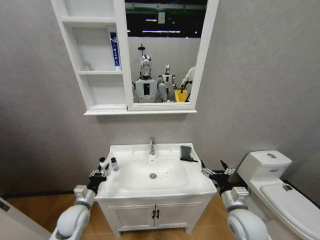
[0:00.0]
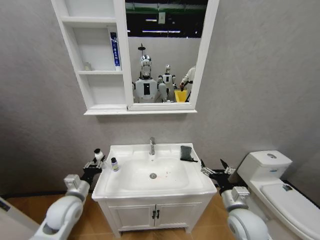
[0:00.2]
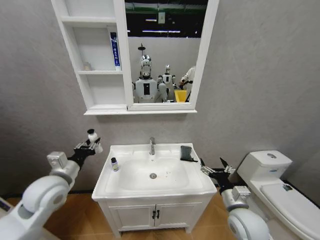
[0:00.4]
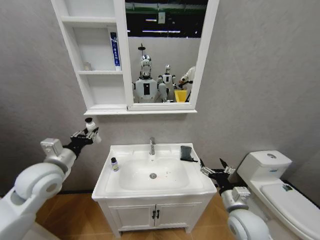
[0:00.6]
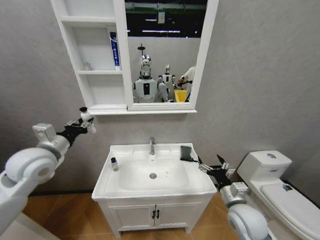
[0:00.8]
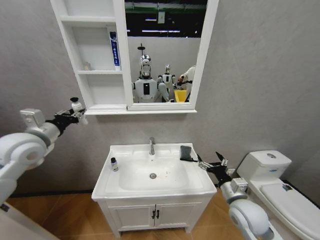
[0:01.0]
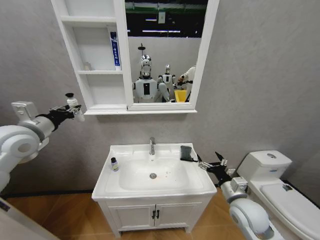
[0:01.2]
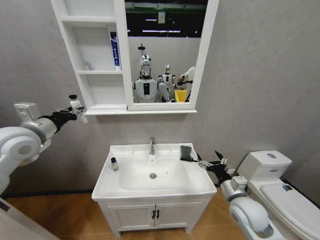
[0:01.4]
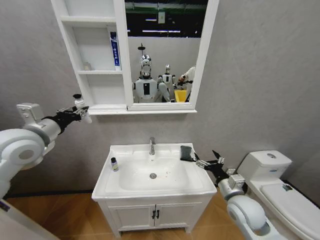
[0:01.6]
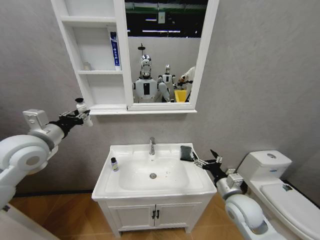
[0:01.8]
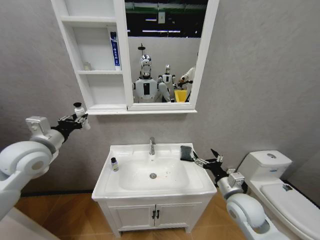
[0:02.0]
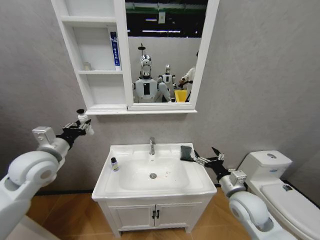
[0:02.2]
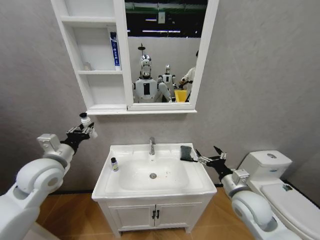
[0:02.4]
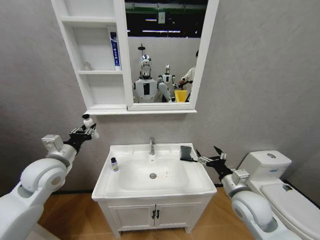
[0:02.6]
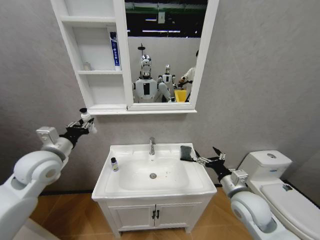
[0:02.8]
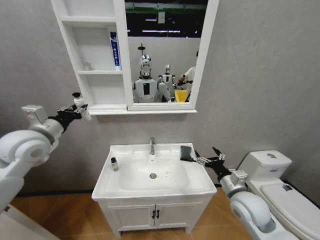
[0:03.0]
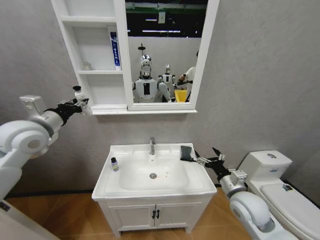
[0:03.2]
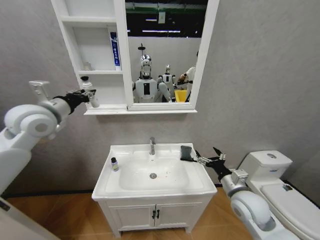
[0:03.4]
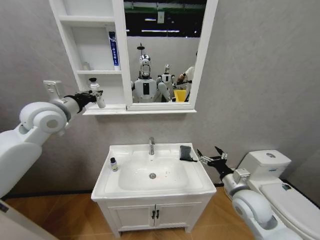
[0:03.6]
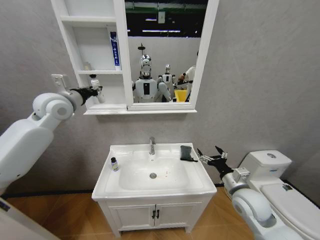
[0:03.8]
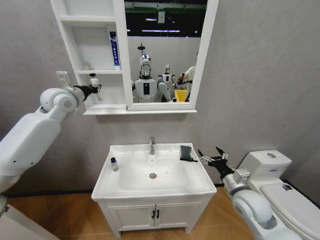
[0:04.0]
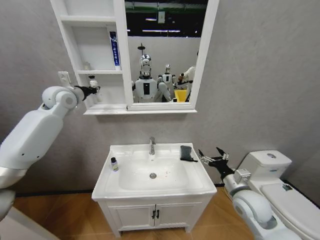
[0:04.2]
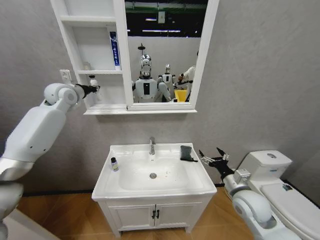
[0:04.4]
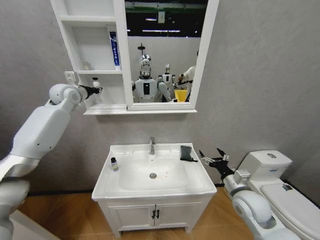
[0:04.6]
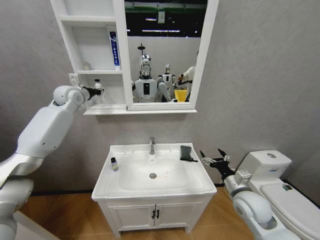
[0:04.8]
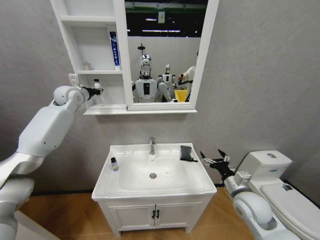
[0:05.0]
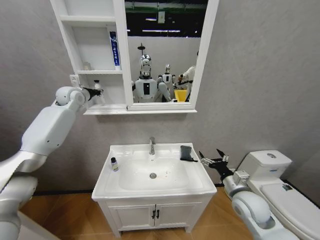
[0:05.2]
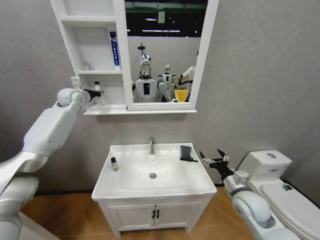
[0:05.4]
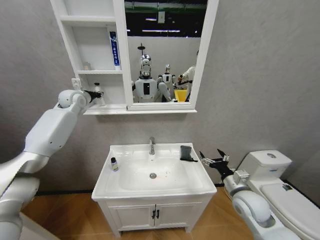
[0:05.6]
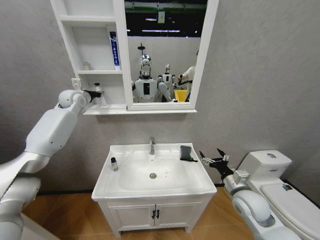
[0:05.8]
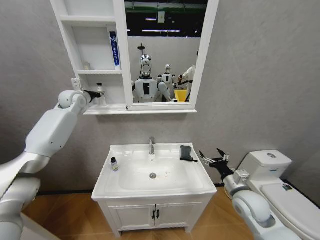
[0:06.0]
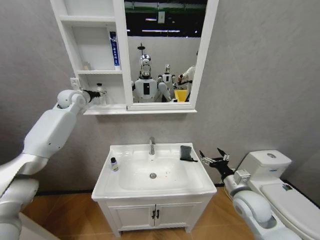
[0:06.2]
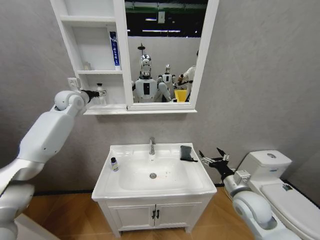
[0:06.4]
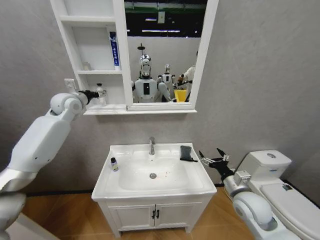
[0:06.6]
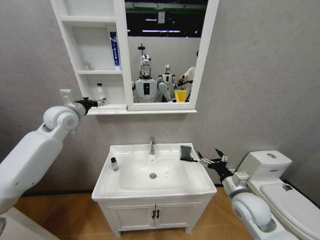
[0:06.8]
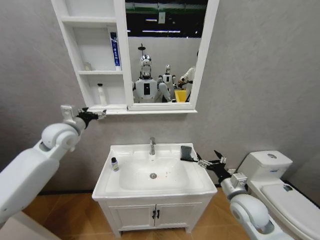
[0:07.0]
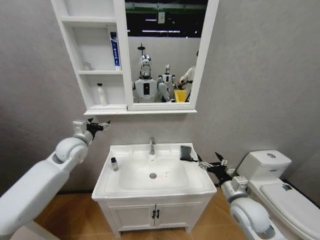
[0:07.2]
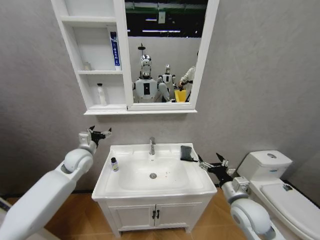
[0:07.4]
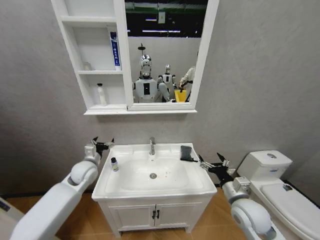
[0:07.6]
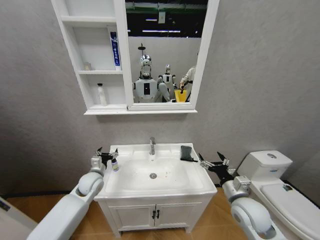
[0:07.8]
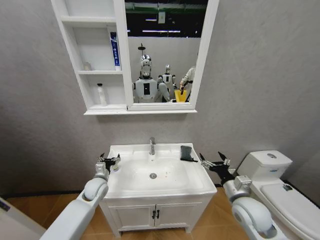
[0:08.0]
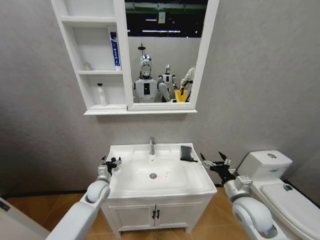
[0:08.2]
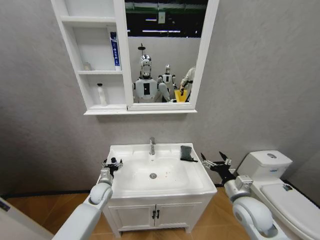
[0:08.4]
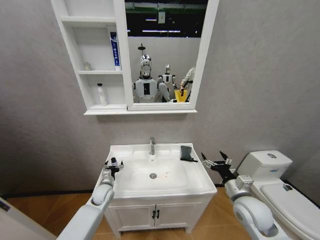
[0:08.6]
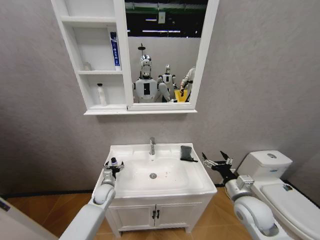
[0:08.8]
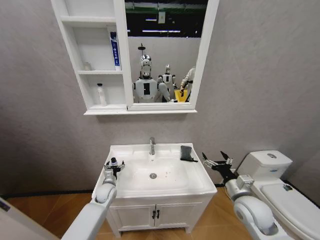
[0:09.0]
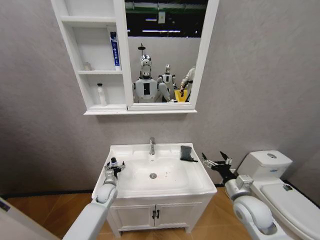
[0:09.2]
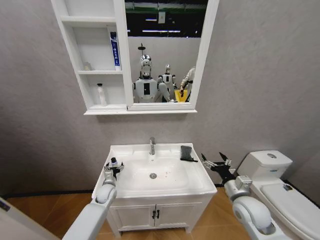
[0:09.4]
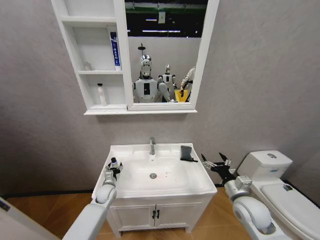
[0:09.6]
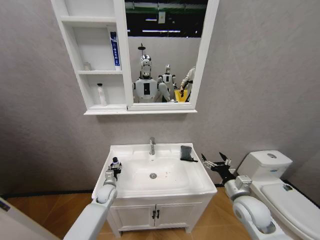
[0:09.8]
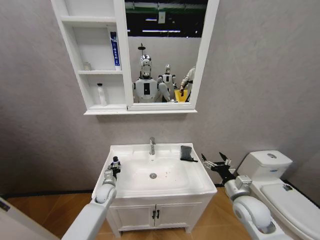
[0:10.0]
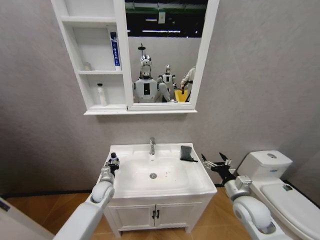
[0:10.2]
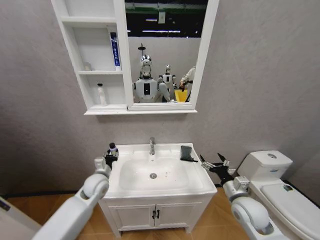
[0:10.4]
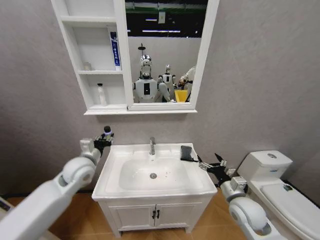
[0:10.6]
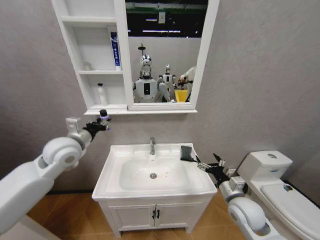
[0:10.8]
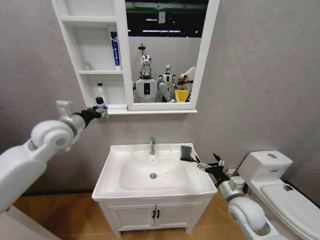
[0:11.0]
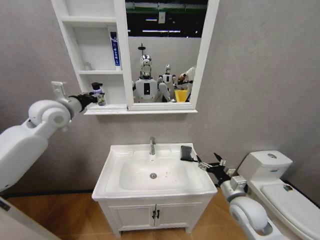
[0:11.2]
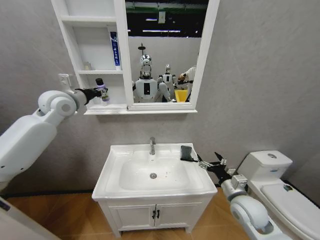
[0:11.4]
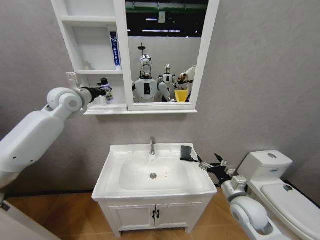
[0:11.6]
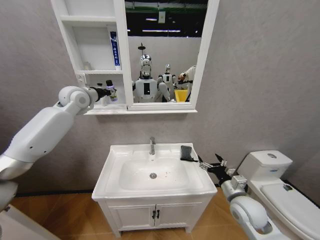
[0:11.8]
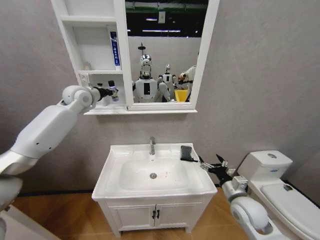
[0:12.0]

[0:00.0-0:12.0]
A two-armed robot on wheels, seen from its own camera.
Task of the whole recording: Move facial cleanser and shampoo from washbasin to cabinet, then wipe washbasin with towel.
0:00.0 to 0:01.6: The left gripper moves upward, roughly 35 cm.
0:01.6 to 0:03.0: The left gripper travels downward and back again, some 10 cm each way.
0:03.0 to 0:04.4: The left gripper heads forward and upward, covering approximately 20 cm.
0:04.4 to 0:06.0: The left gripper travels forward by some 5 cm, and opens.
0:06.0 to 0:07.6: The left gripper heads downward and backward, covering about 30 cm, and opens.
0:07.6 to 0:09.0: The left gripper shifts approximately 15 cm downward.
0:09.0 to 0:10.4: The left gripper is displaced upward by approximately 15 cm, and closes up.
0:10.4 to 0:12.0: The left gripper shifts about 35 cm upward and forward.

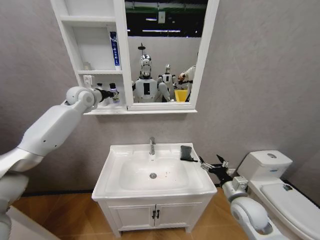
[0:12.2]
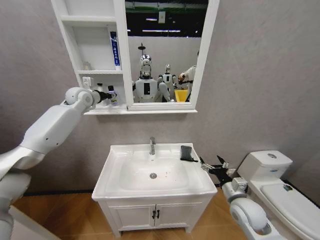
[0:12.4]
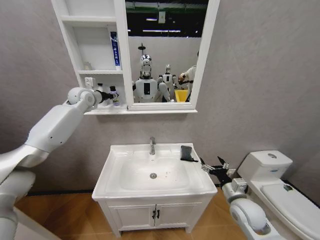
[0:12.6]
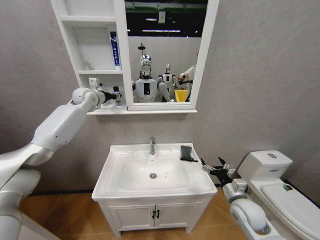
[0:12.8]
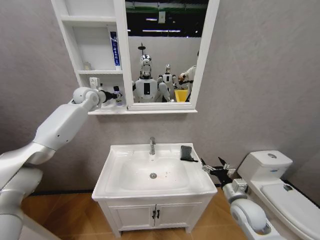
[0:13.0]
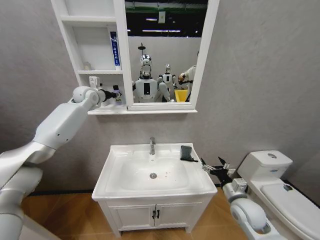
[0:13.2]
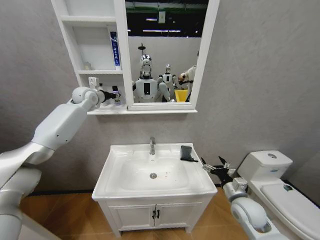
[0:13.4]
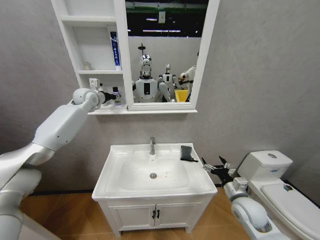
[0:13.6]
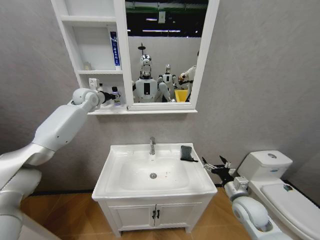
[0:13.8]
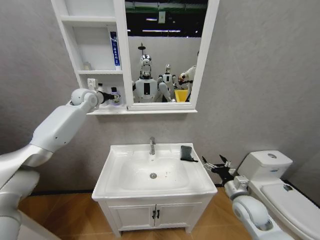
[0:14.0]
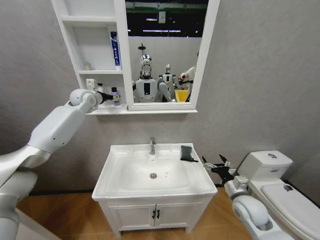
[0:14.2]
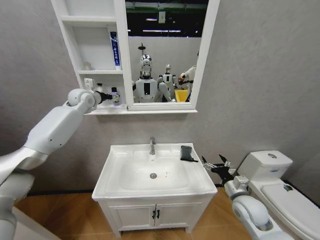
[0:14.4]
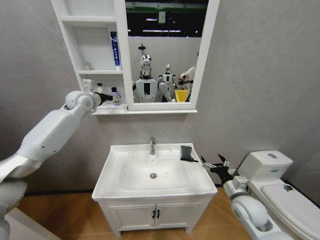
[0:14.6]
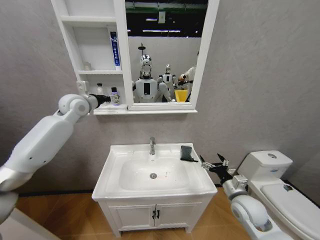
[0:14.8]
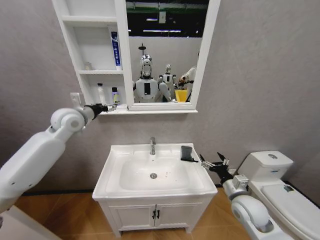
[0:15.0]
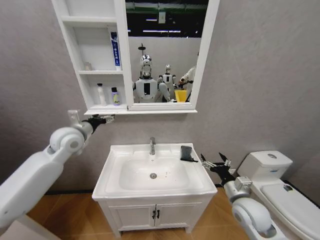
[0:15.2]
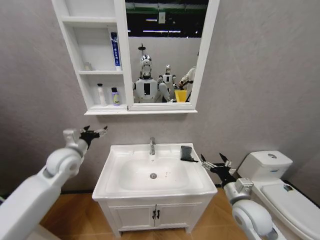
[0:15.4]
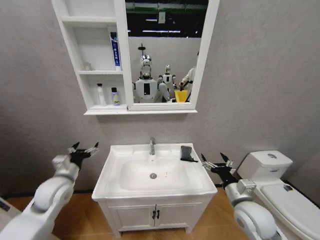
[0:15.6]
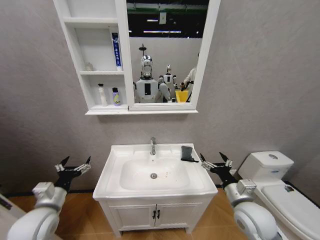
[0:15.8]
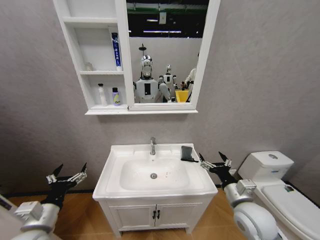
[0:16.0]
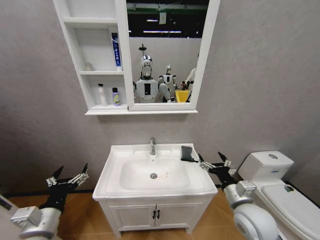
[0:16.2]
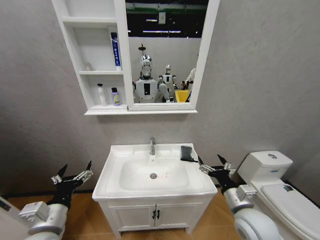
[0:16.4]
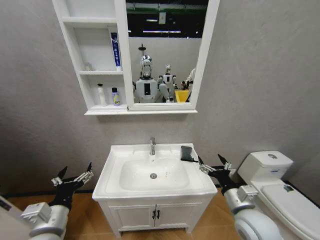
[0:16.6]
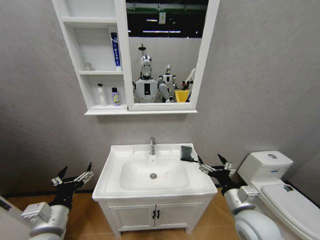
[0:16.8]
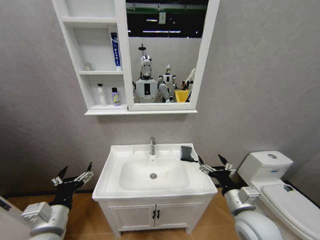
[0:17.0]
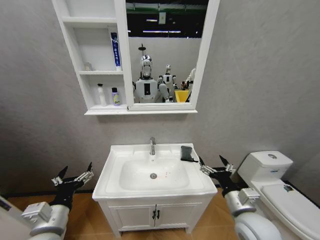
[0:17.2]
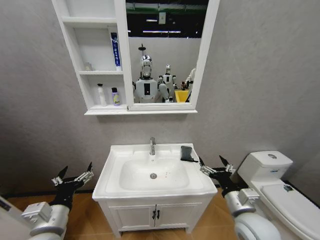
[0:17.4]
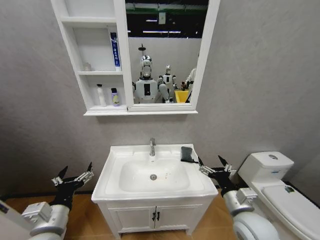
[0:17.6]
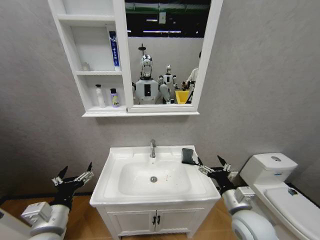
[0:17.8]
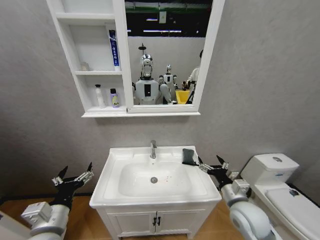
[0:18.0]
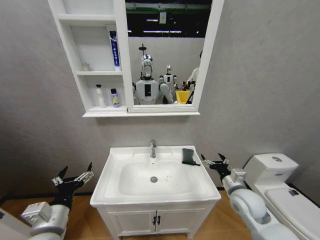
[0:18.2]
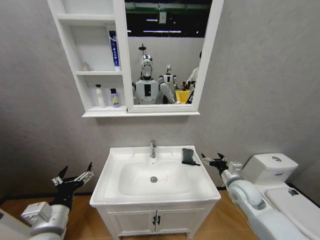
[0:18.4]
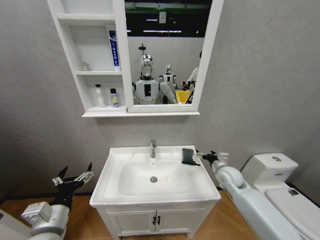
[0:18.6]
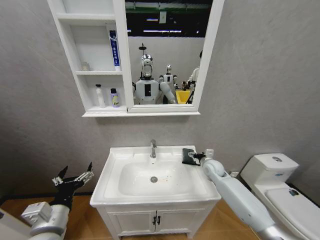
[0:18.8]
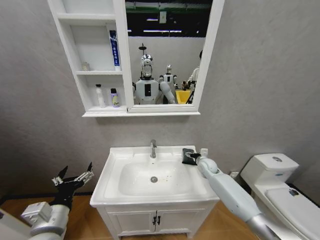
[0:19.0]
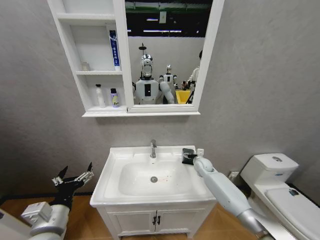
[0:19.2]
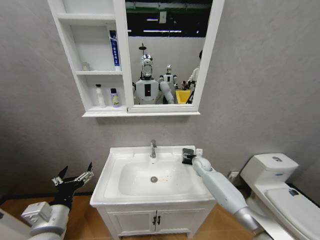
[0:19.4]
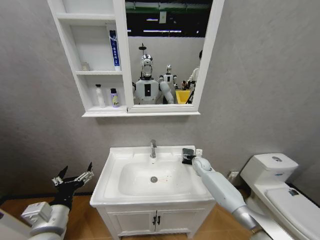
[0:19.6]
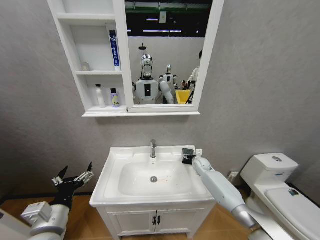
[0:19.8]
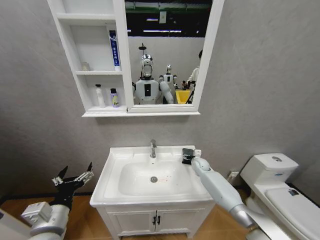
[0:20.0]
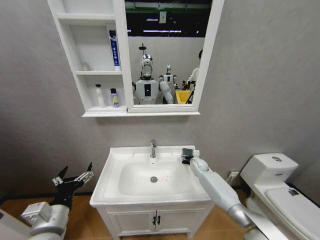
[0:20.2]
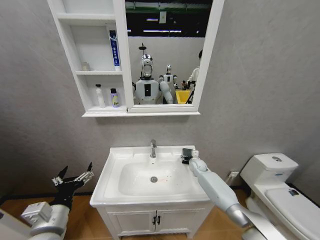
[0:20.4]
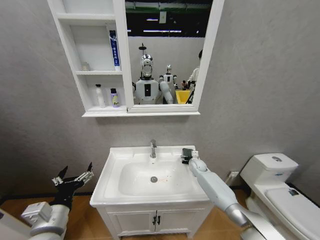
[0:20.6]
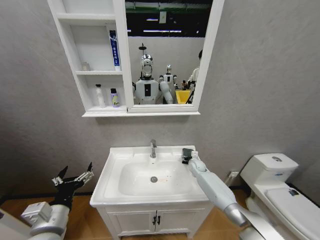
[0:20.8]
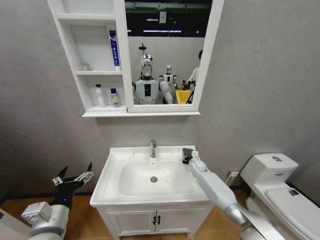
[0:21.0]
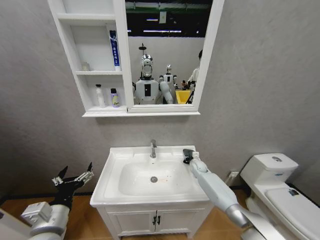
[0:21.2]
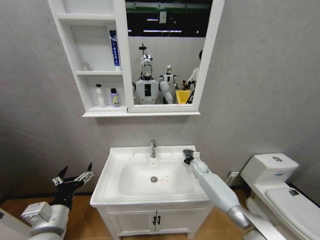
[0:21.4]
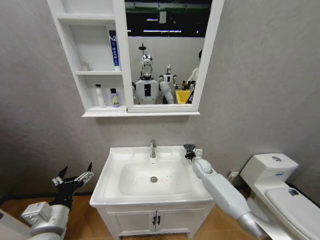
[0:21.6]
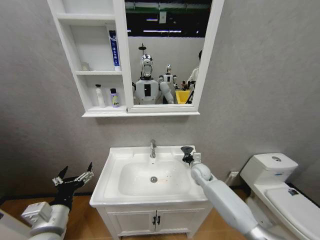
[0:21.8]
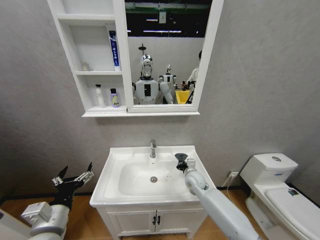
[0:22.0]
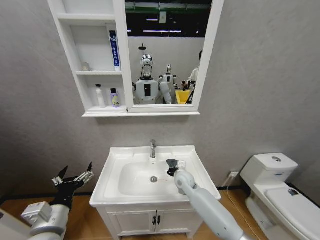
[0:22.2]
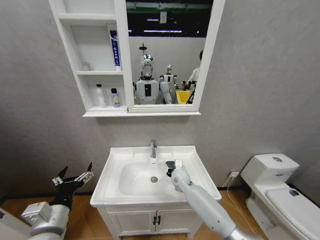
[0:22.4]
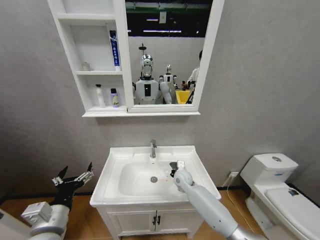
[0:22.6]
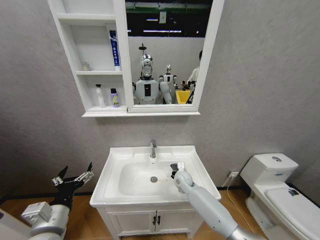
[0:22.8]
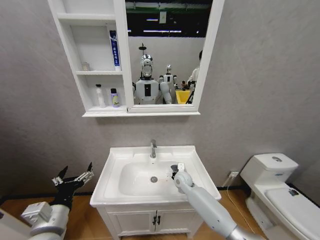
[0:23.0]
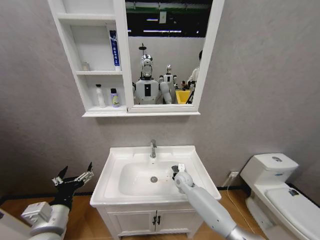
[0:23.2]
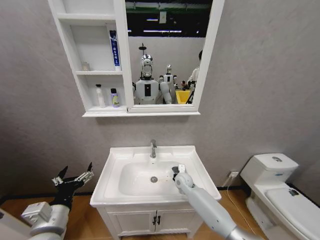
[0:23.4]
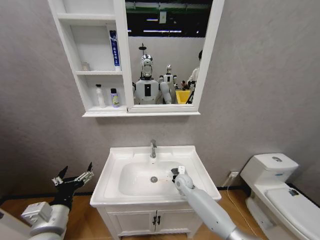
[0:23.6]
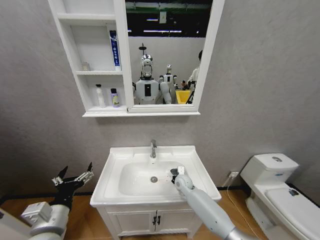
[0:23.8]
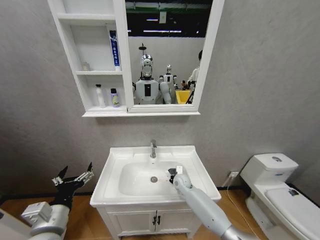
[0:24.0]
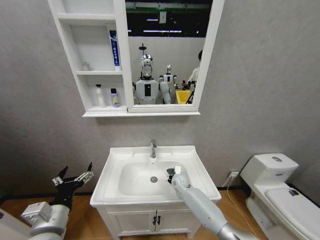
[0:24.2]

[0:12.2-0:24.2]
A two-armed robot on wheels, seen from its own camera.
Task of the whole recording: Move facial cleanser and shampoo from washbasin to cabinet, then wipe washbasin with towel.
0:12.2 to 0:13.8: The grippers stay close to where they were, moving slightly.
0:13.8 to 0:15.2: The left gripper heads backward and downward, covering some 20 cm, and opens its fingers.
0:15.2 to 0:16.6: The left gripper heads backward and downward, covering approximately 30 cm, while the right gripper changes place by some 5 cm.
0:16.6 to 0:18.2: The right gripper moves forward, roughly 5 cm.
0:18.2 to 0:19.8: The right gripper heads forward and downward, covering roughly 25 cm.
0:19.8 to 0:21.2: The right gripper closes up.
0:21.2 to 0:22.6: The right gripper moves to the left and backward, some 15 cm, and closes its fingers.
0:22.6 to 0:24.2: The right gripper moves downward, approximately 5 cm.
